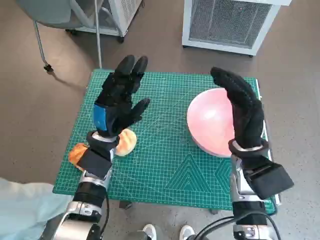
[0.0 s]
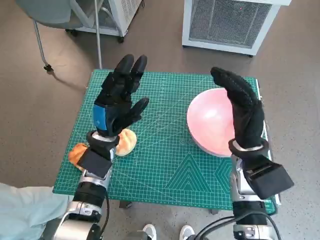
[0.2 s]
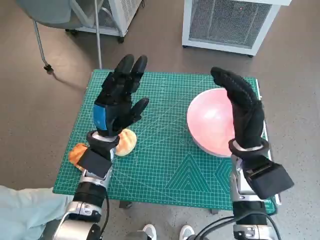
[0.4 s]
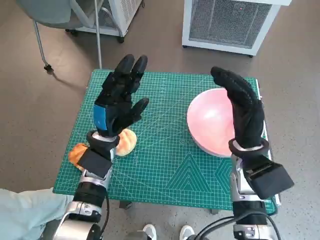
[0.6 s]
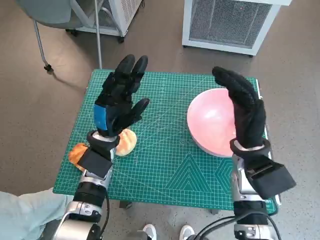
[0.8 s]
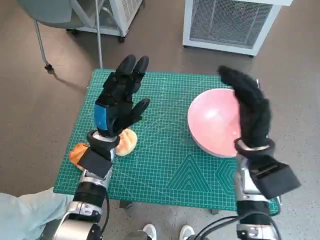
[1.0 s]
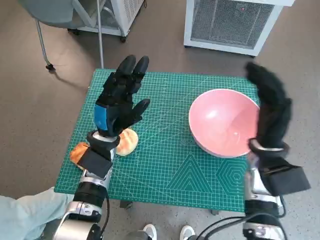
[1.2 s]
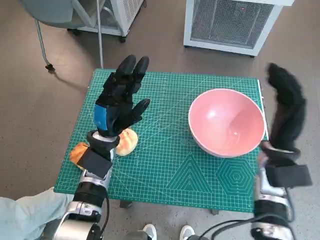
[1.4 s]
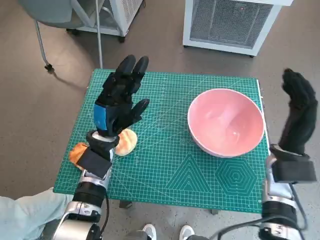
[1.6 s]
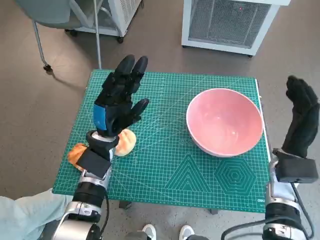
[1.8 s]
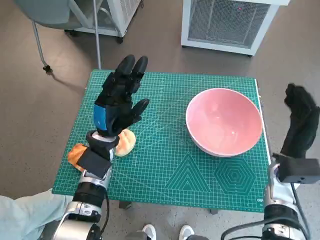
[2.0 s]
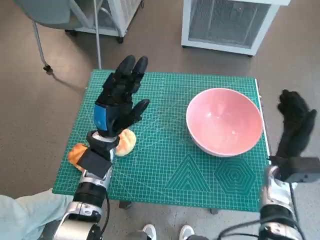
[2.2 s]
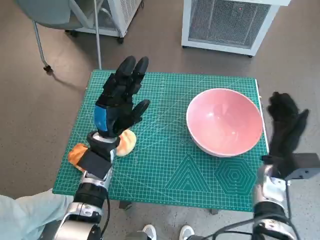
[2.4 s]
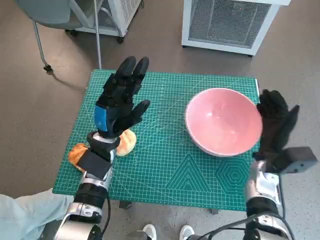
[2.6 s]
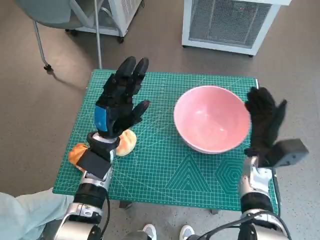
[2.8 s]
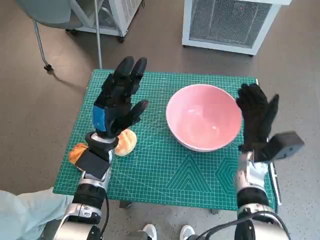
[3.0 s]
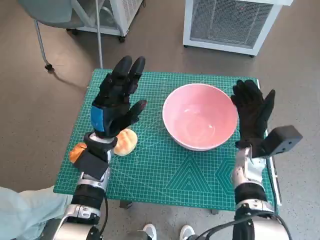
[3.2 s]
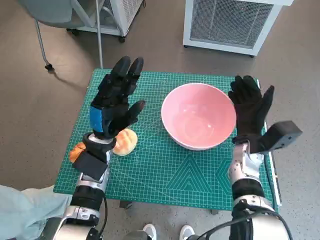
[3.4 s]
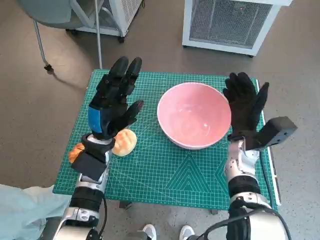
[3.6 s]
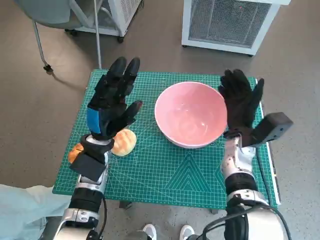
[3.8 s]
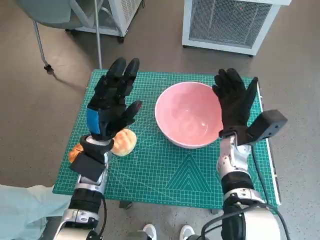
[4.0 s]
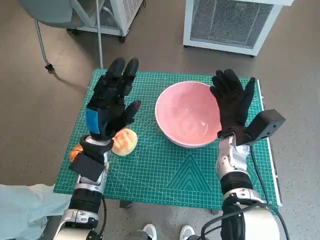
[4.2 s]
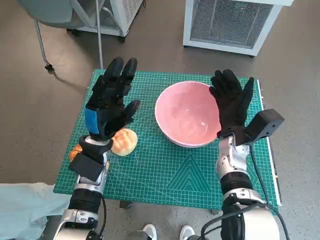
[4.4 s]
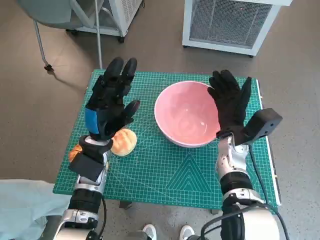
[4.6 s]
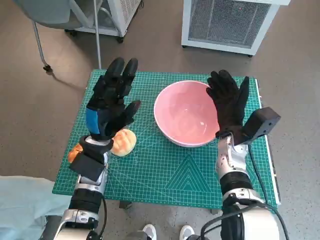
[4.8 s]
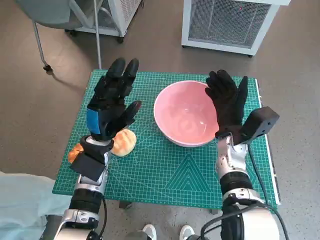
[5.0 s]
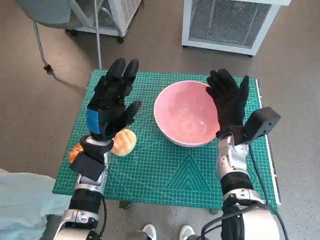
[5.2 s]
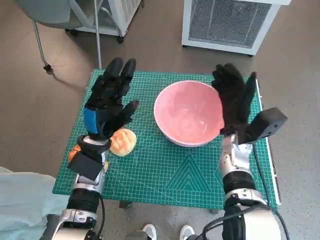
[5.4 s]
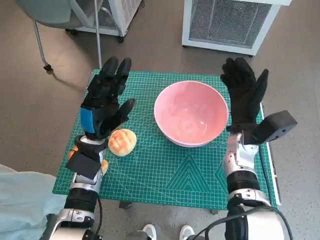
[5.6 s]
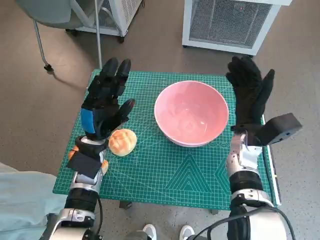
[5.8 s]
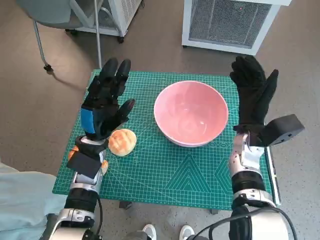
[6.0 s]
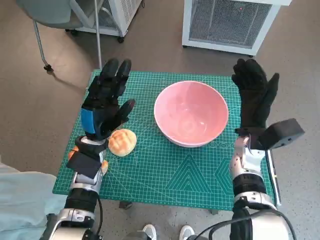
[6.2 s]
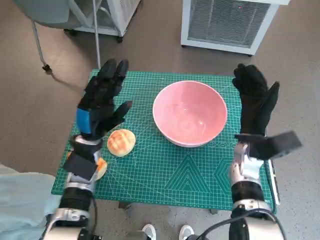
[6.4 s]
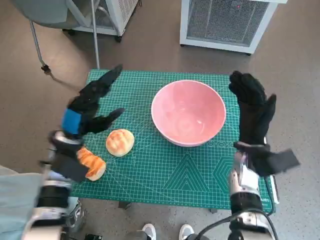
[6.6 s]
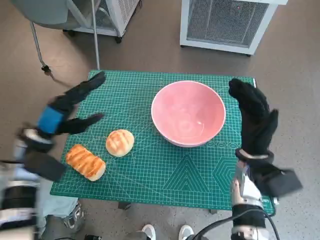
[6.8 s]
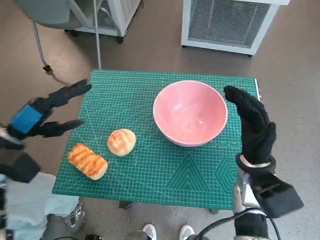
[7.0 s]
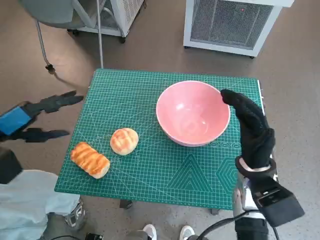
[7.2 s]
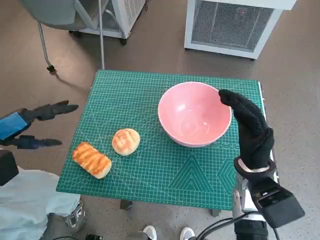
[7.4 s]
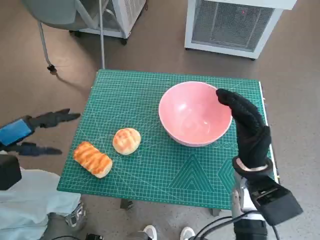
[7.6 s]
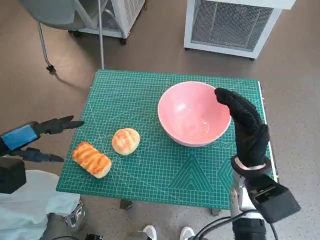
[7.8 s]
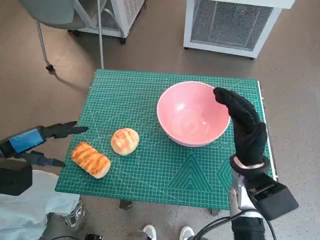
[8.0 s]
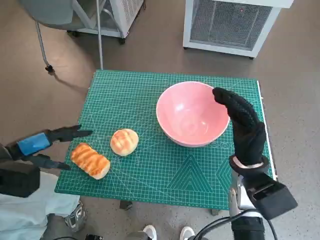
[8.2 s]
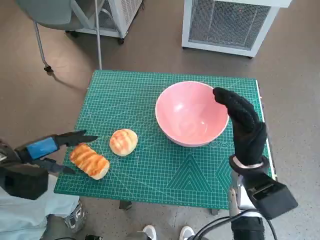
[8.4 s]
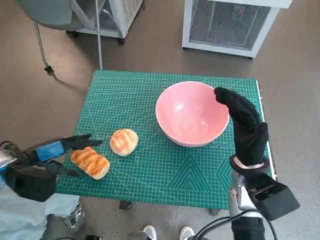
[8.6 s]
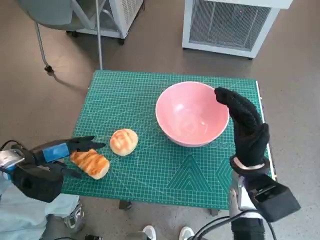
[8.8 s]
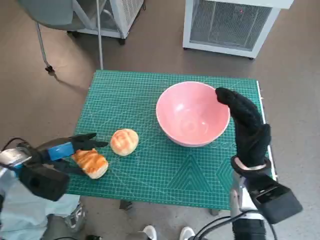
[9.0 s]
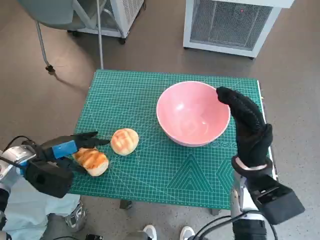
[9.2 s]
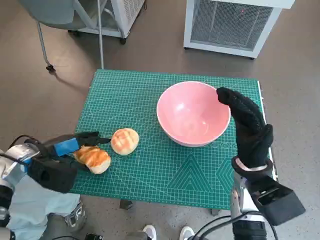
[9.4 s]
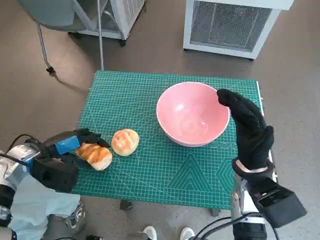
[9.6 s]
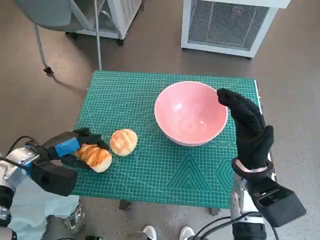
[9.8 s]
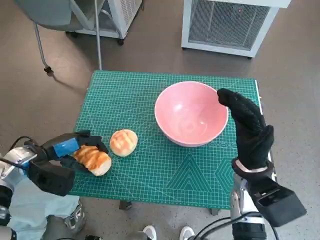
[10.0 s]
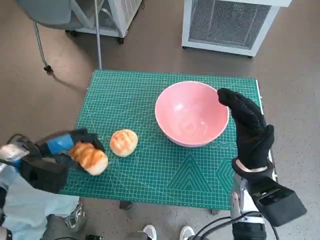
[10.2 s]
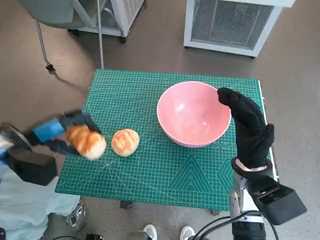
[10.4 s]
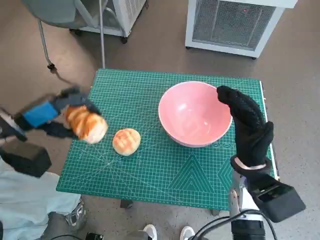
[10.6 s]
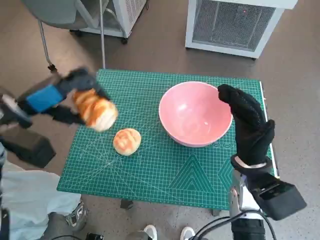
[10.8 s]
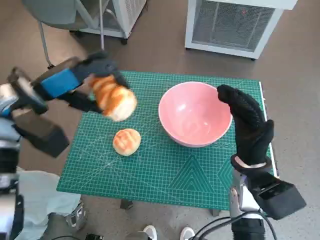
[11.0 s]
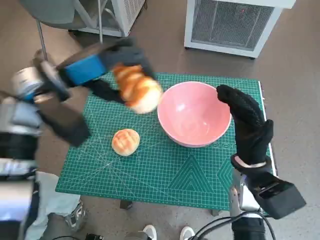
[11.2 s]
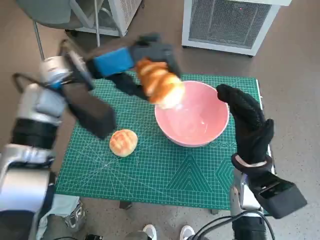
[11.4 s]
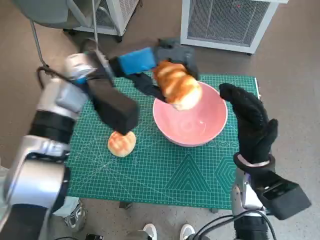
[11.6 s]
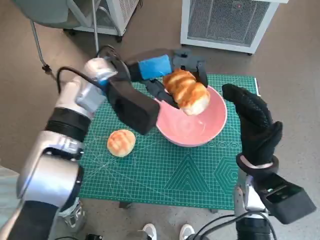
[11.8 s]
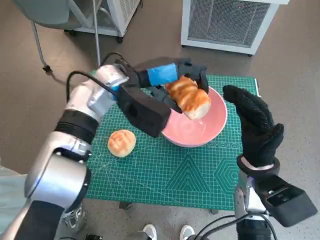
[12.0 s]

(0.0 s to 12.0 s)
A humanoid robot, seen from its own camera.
Task of the whole recording: Push the bowl to the center of the table and put the bread into the bowl.
Step, 0.0 s - 5.6 s: Move the pink bowl to the center of table with right hand.
Step, 5.8 s - 9.6 s: Grasp the long bread with left hand.
1.6 s - 3.0 s: The right hand shifts roughly 5 cm downward.
3.0 s - 4.4 s: The right hand moves about 5 cm.
4.4 s - 6.0 s: There are only small adjustments of the hands.
6.0 s - 7.6 s: The right hand is displaced backward by some 10 cm. Meanwhile the left hand is displaced to the left and upward by roughly 20 cm.
7.6 s - 9.0 s: The left hand goes some 10 cm downward.
9.0 s - 10.4 s: The hands move only a little.
10.4 s - 12.0 s: The left hand goes roughly 25 cm to the right, forward and upward.

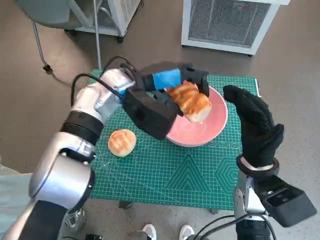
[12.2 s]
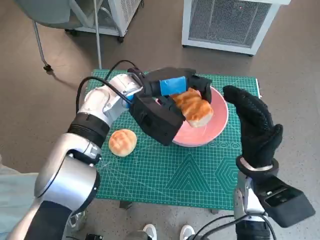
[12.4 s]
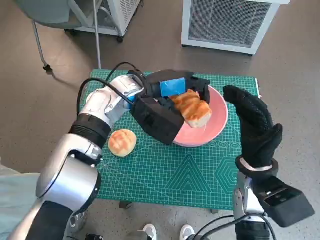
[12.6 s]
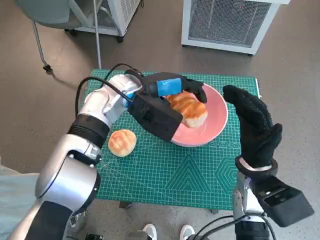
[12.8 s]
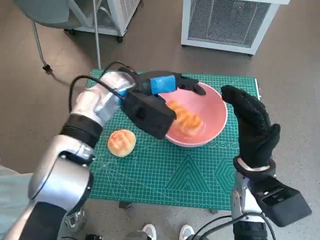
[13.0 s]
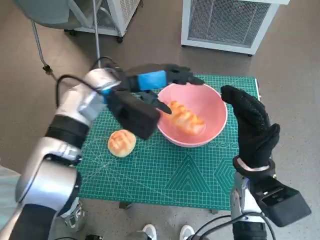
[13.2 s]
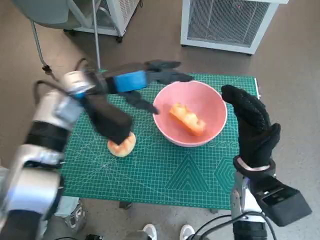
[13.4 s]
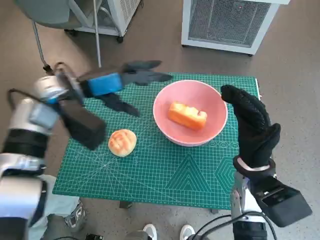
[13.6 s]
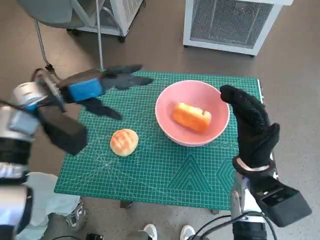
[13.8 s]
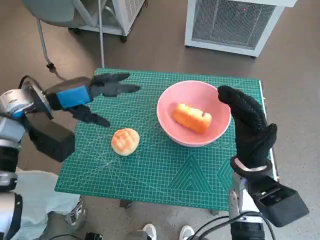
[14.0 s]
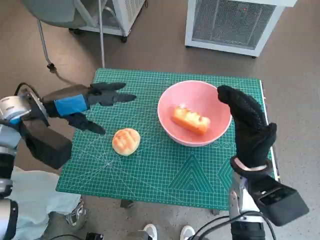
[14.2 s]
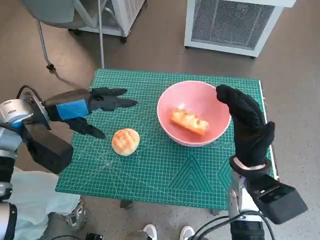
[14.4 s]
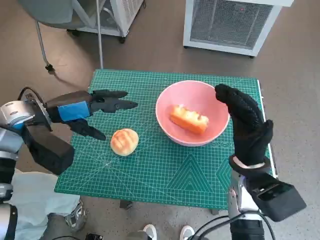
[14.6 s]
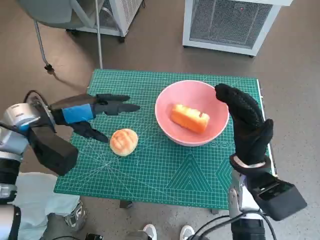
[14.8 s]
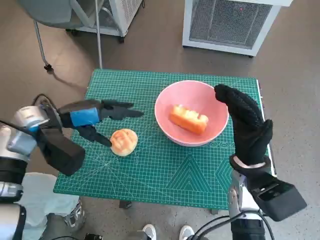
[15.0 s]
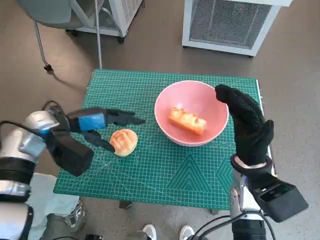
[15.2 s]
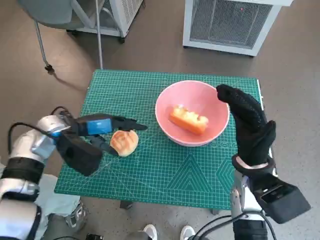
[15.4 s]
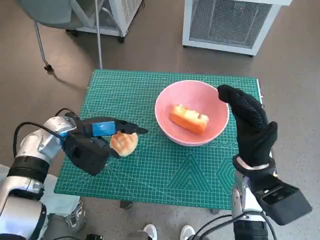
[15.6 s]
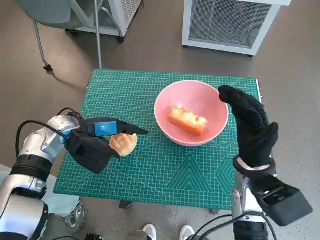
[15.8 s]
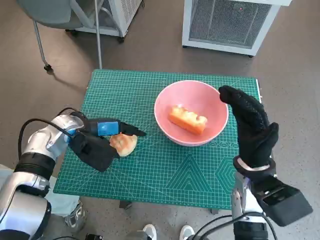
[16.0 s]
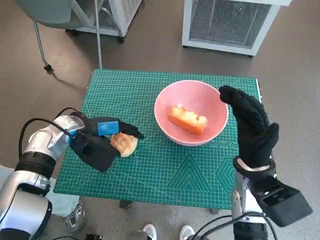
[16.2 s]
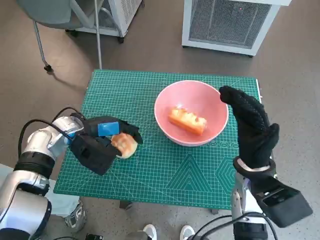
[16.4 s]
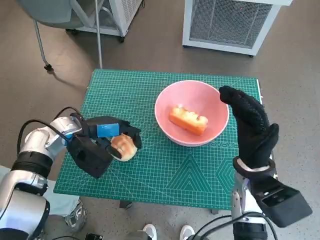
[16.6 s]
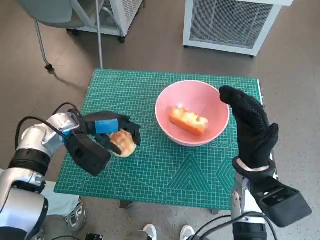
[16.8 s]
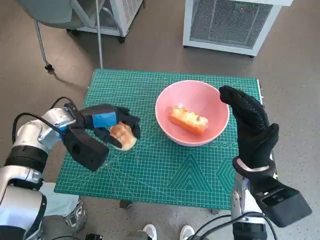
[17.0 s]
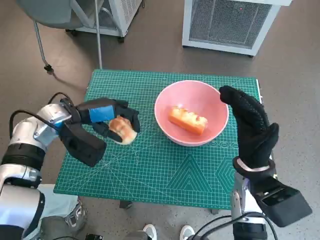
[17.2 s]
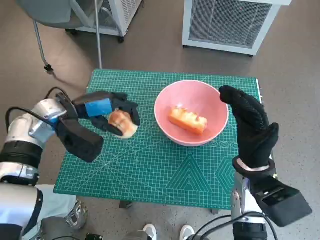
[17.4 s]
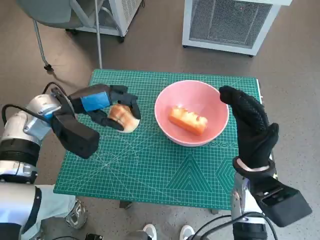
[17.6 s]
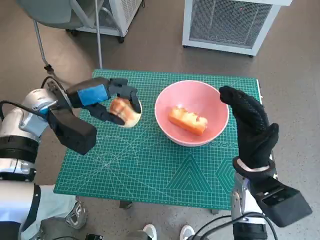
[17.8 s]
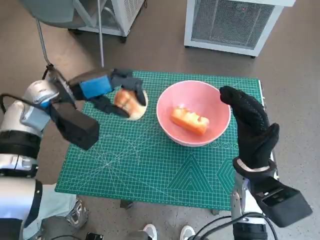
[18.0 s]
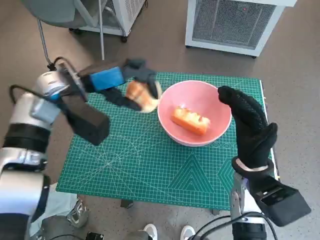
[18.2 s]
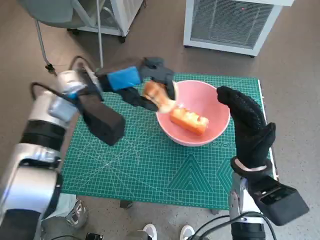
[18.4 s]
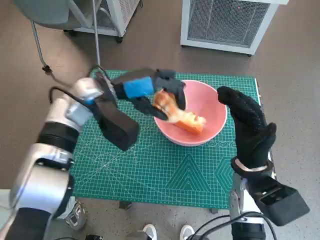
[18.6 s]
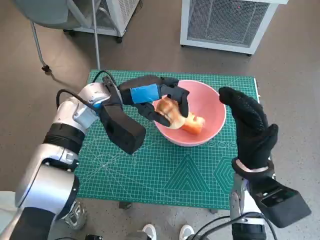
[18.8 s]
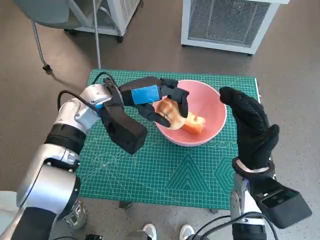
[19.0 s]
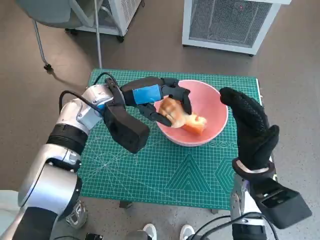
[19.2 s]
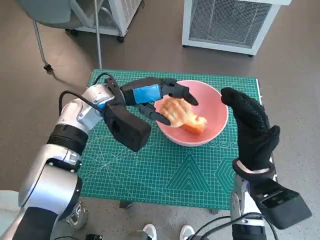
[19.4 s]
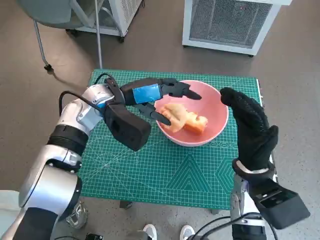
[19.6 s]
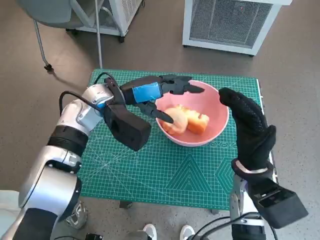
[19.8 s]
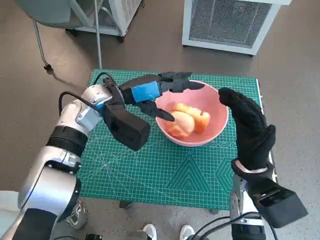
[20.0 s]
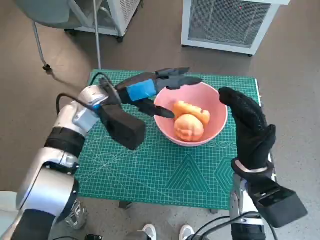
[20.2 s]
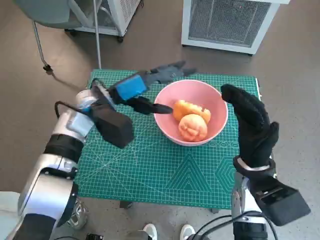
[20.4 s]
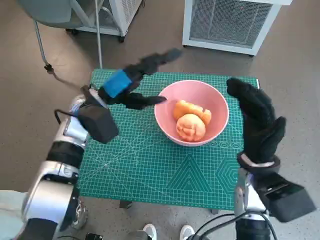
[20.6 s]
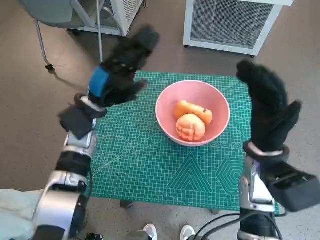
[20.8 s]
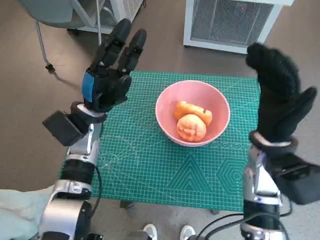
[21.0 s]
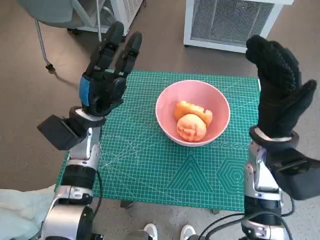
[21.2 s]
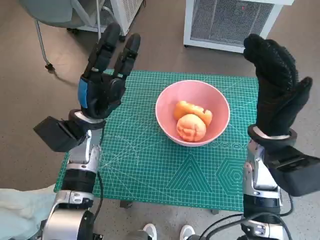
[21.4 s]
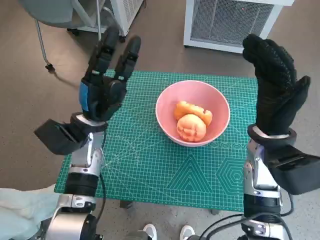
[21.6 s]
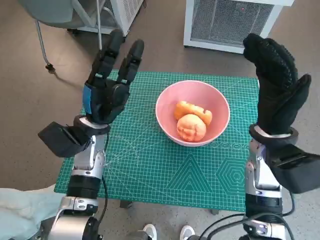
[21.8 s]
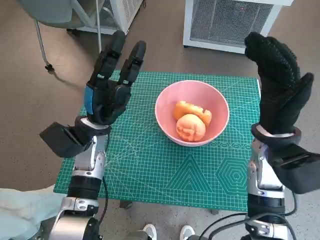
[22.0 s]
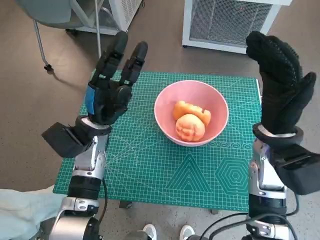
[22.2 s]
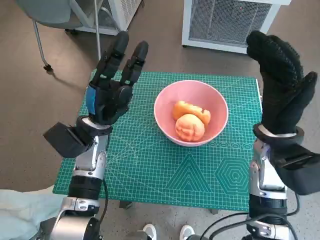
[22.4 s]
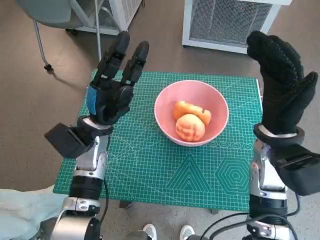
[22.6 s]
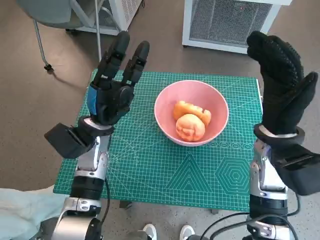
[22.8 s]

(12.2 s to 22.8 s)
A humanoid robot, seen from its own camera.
Task of the whole recording: Push the bowl to the center of the table and put the bread into the bowl.
Step, 13.2 s - 16.2 s: Grasp the round bread with left hand.
Step, 16.4 s - 20.4 s: Place the round bread in pink bowl with left hand.
12.2 s - 13.8 s: The left hand moves to the left, roughly 15 cm.
13.8 s - 15.2 s: The left hand travels downward by about 5 cm.
15.2 s - 16.8 s: The hands make only small movements.
16.8 s - 18.2 s: The left hand heads upward, covering approximately 10 cm.
18.2 s - 19.8 s: The left hand moves to the right, roughly 5 cm.
19.8 s - 21.2 s: The left hand ends up some 5 cm from where it was, while the right hand moves upward, some 5 cm.
